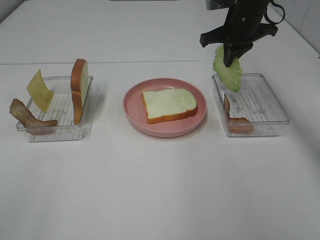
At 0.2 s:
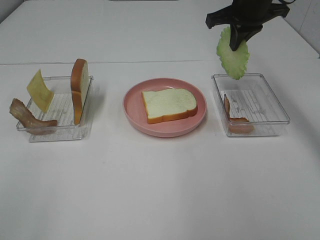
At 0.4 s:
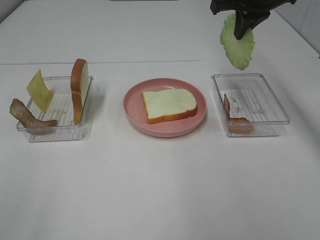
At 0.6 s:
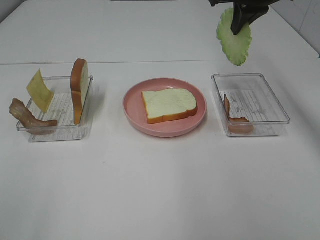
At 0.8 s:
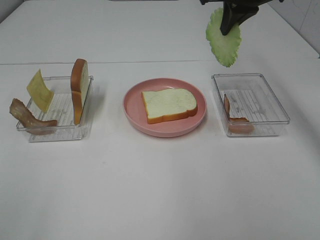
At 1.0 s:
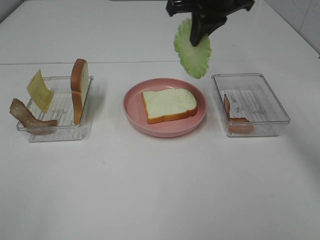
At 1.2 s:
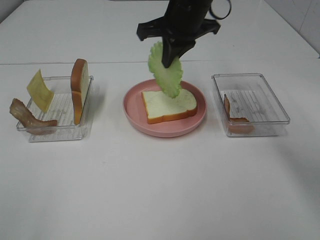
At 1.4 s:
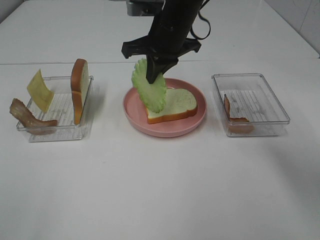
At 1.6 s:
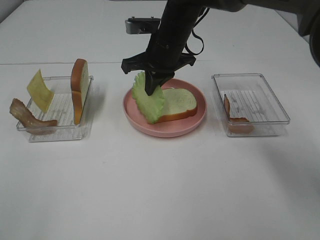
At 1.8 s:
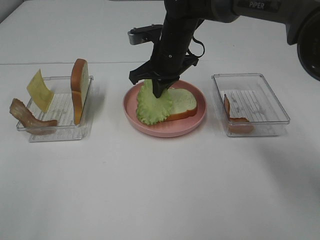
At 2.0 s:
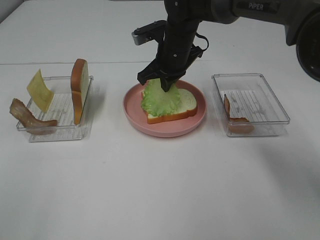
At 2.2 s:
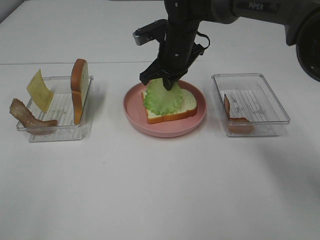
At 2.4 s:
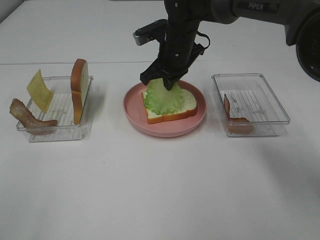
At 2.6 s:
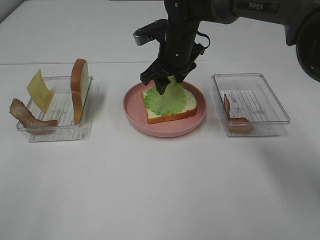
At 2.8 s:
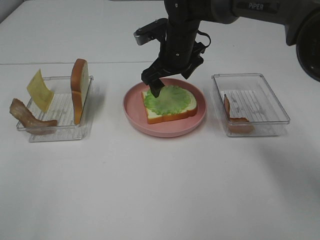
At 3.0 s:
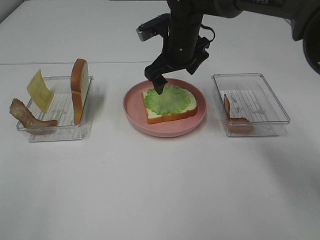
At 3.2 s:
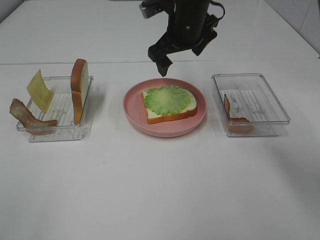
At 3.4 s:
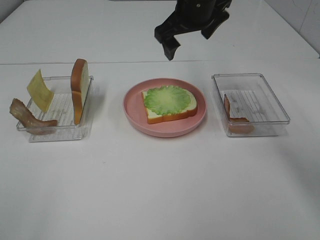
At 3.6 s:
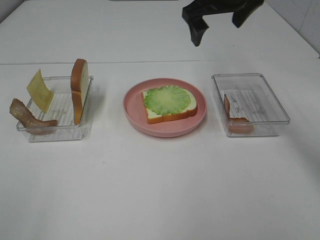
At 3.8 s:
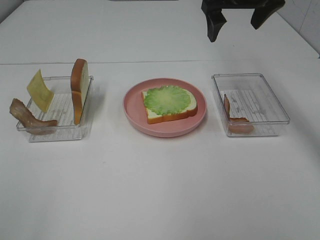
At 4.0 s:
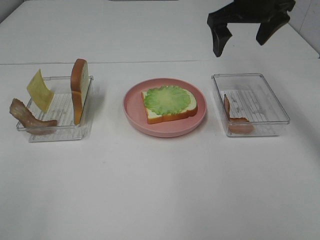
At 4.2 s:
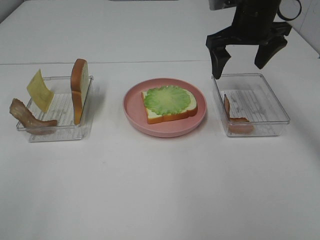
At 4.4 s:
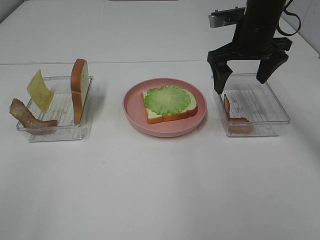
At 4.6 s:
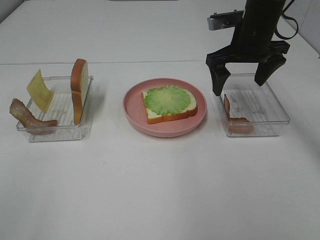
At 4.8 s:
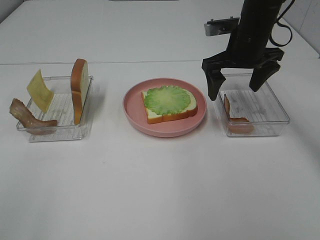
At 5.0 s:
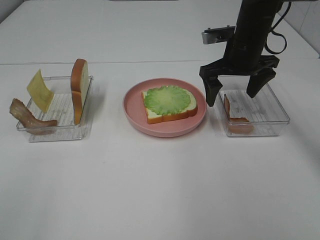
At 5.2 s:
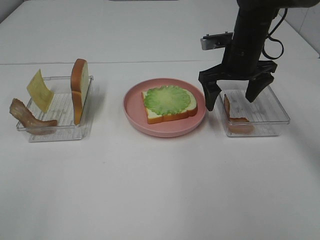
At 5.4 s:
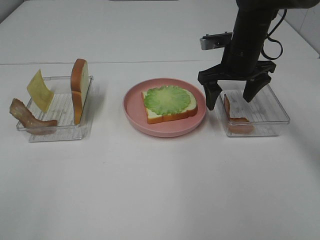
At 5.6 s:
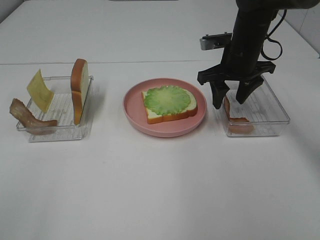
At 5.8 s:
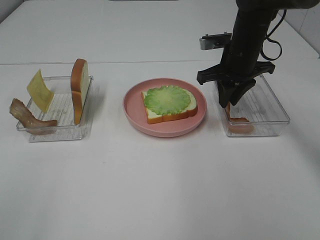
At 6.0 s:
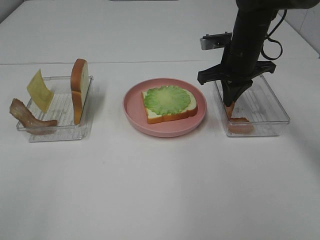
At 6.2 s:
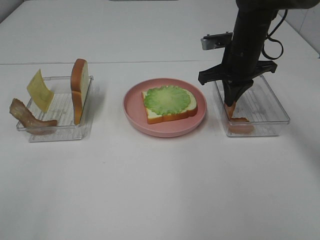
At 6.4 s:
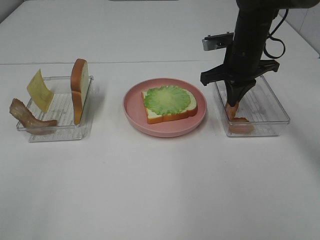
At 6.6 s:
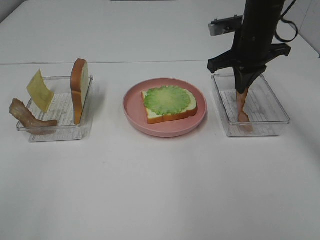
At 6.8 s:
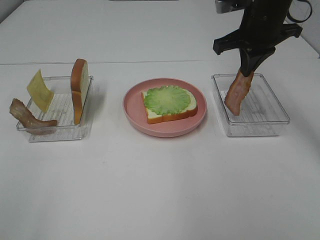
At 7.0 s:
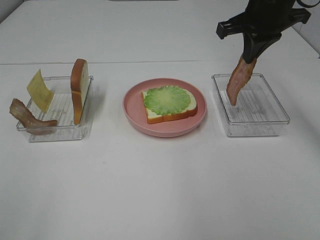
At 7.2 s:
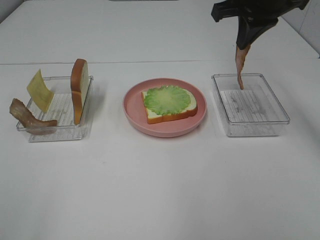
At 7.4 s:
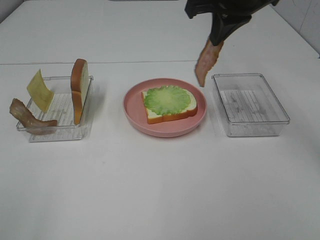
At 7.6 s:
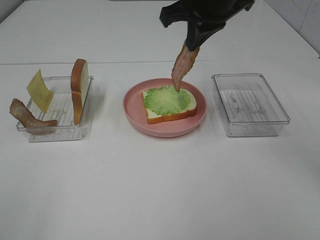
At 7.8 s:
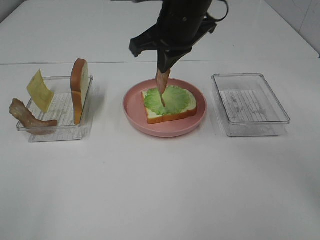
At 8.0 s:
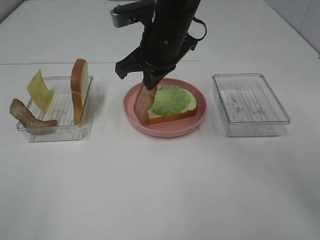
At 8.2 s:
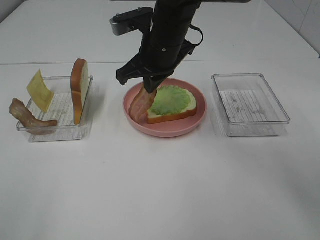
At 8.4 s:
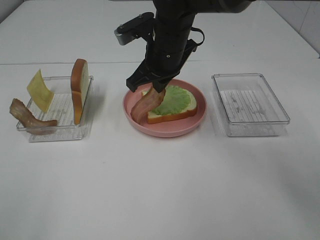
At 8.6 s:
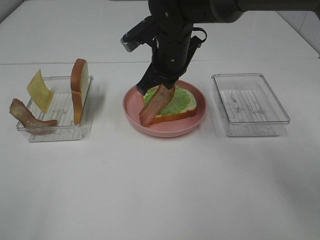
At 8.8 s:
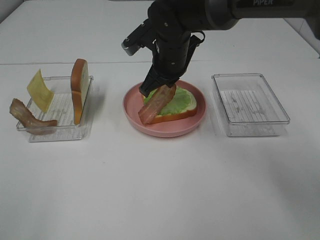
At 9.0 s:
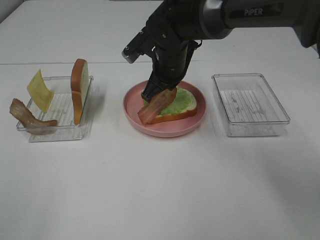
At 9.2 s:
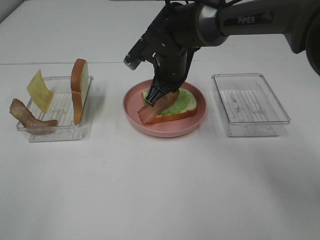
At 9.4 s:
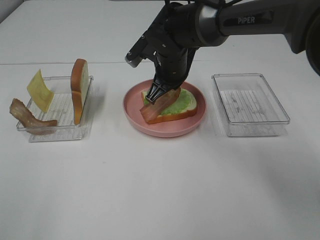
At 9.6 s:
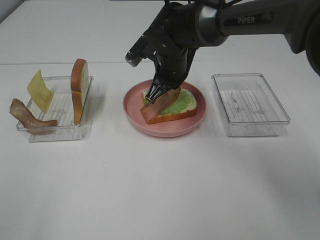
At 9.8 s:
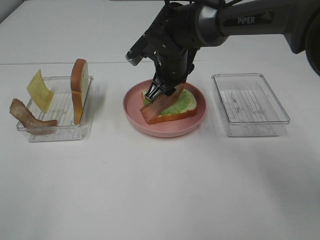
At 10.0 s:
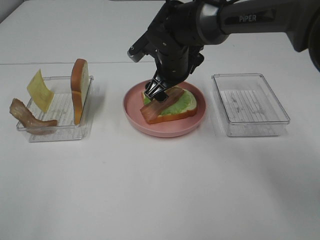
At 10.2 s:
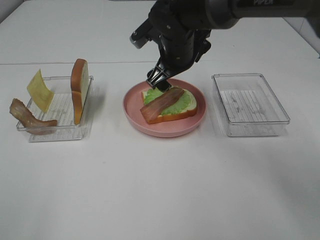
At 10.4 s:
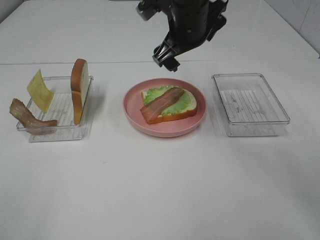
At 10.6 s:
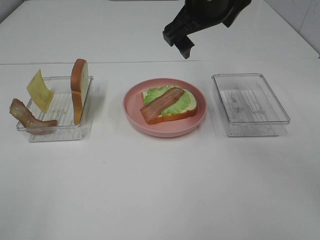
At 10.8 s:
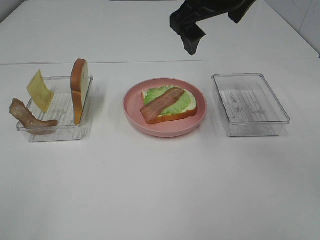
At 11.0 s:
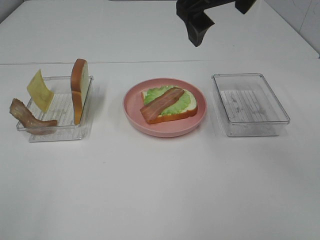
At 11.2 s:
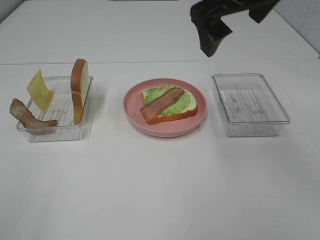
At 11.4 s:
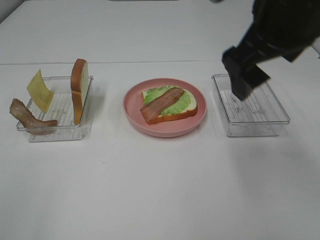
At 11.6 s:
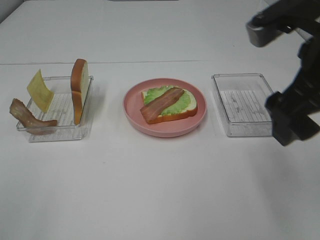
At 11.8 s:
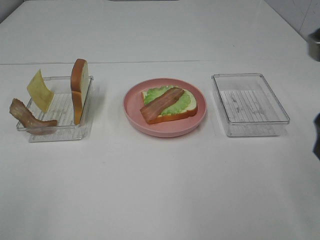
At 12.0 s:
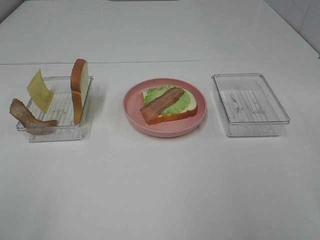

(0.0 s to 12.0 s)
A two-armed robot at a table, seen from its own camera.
Task of the whole recording: Make sandwiches.
Step, 0.0 s - 3.2 s: Right hand:place the lettuce slice on the bread slice.
Step, 3.4 s - 5.8 s: Right hand:grab the bacon.
Step, 6.0 s - 10.0 s: Right hand:place bacon on lettuce slice.
0.0 s - 1.6 s: The right gripper travels to the left by about 15 cm.
1.6 s - 3.0 s: The right gripper opens up.
3.0 s - 4.4 s: The right gripper travels to the right by approximately 10 cm.
4.4 s - 6.0 s: The right gripper changes place by roughly 5 cm, and closes its fingers.
6.0 s - 7.6 s: The right gripper moves upward and to the left, roughly 15 cm.
7.6 s - 9.0 s: The right gripper goes approximately 15 cm downward and to the left.
9.0 s - 10.4 s: The right gripper heads upward, covering about 10 cm, and opens up.
10.4 s - 12.0 s: The right gripper heads backward and to the right, covering about 35 cm.

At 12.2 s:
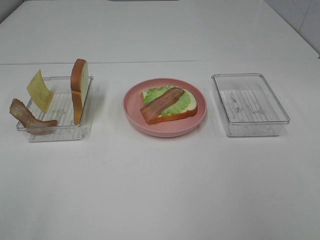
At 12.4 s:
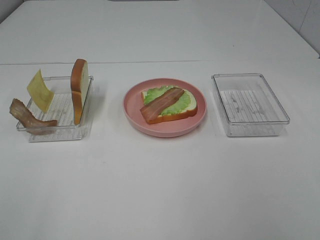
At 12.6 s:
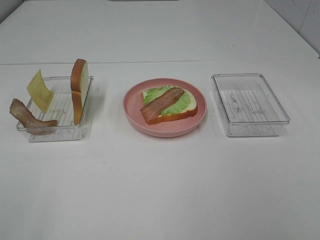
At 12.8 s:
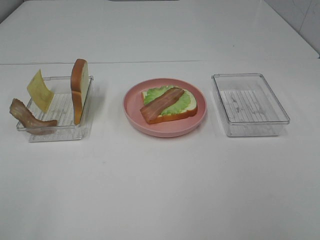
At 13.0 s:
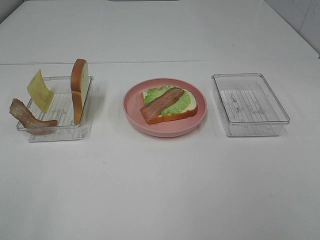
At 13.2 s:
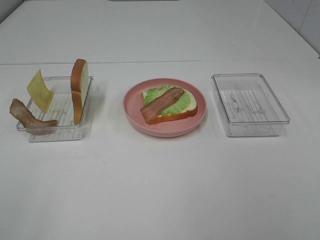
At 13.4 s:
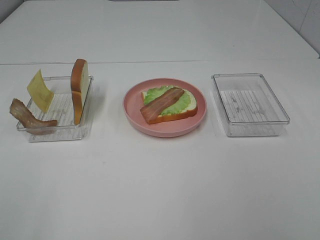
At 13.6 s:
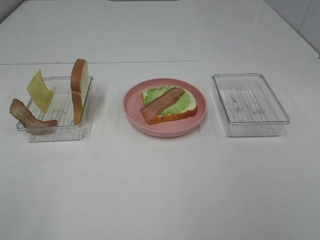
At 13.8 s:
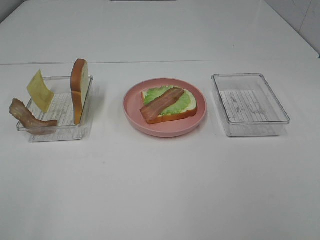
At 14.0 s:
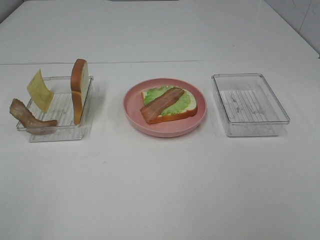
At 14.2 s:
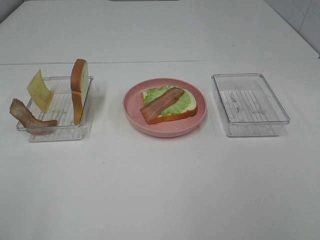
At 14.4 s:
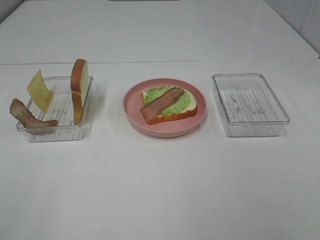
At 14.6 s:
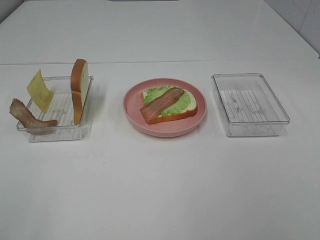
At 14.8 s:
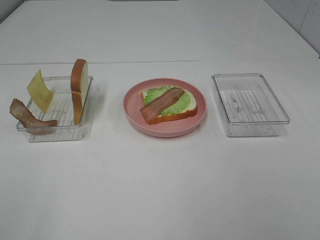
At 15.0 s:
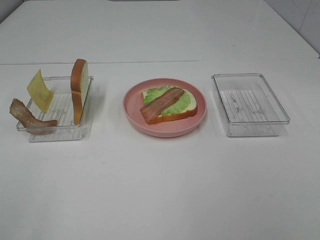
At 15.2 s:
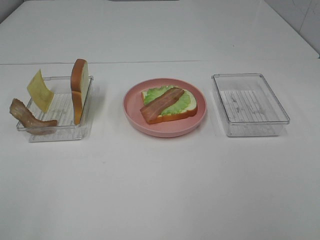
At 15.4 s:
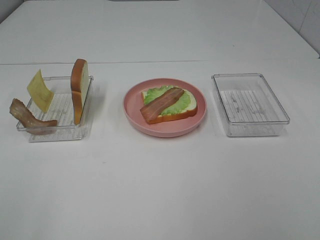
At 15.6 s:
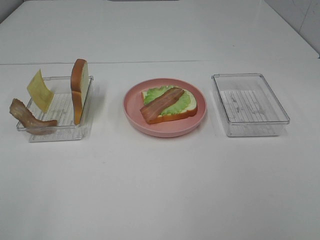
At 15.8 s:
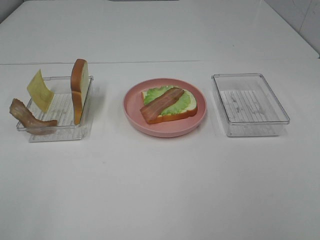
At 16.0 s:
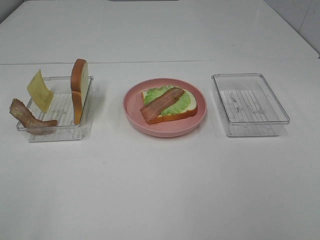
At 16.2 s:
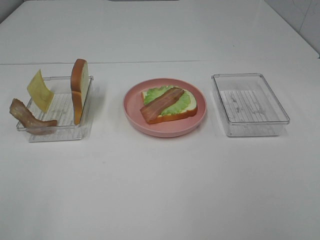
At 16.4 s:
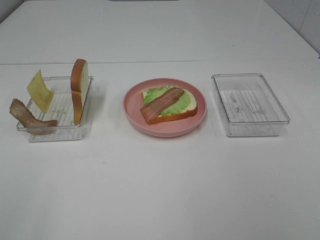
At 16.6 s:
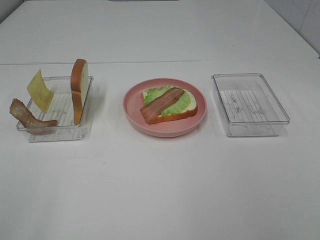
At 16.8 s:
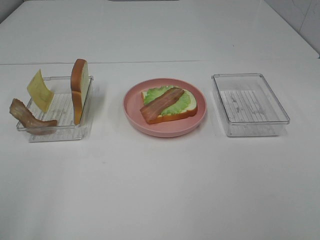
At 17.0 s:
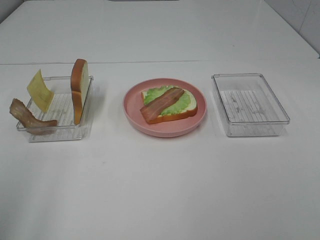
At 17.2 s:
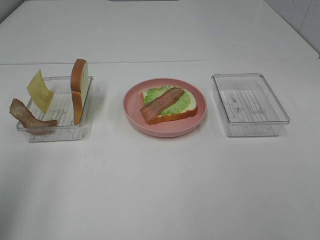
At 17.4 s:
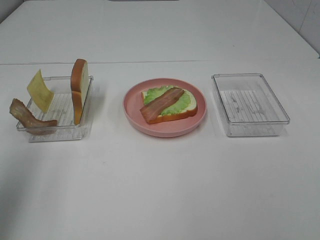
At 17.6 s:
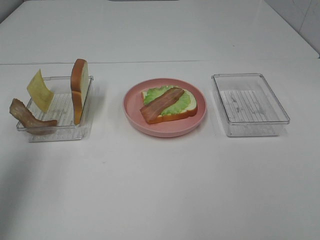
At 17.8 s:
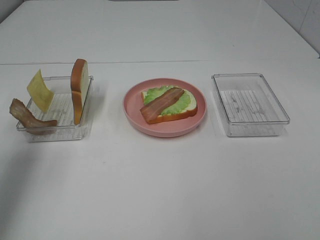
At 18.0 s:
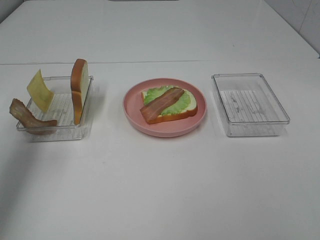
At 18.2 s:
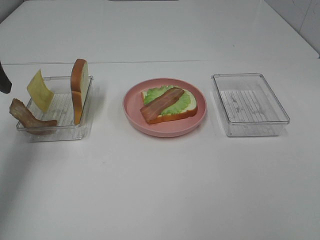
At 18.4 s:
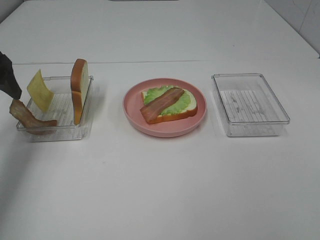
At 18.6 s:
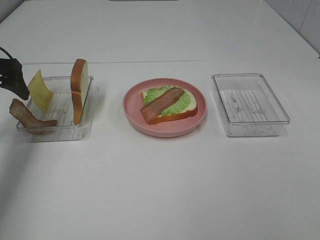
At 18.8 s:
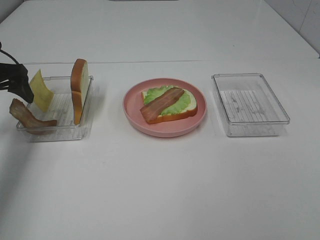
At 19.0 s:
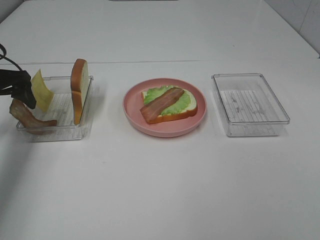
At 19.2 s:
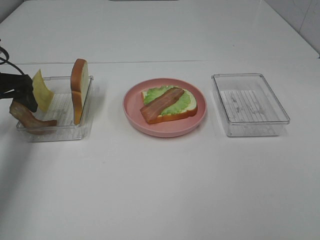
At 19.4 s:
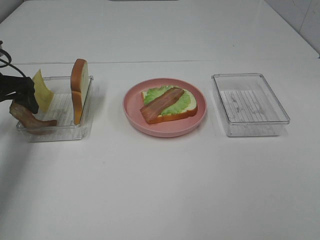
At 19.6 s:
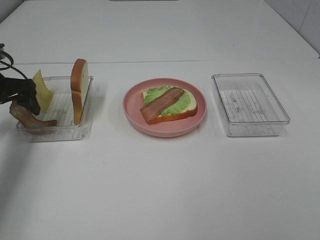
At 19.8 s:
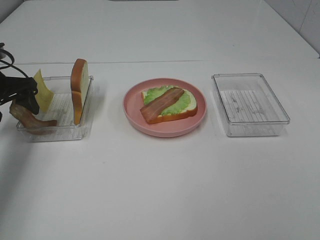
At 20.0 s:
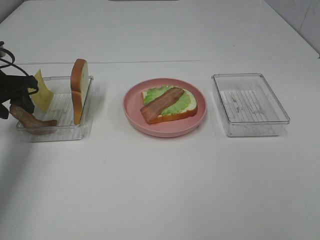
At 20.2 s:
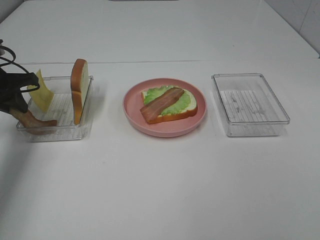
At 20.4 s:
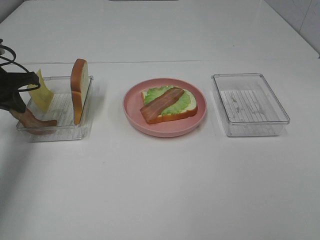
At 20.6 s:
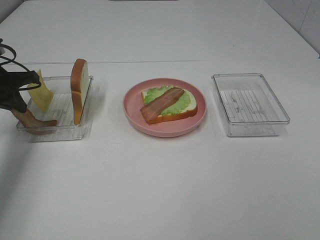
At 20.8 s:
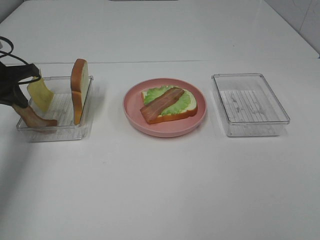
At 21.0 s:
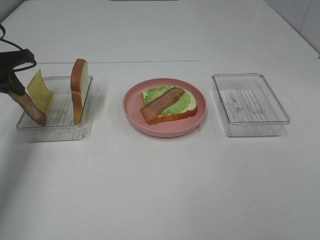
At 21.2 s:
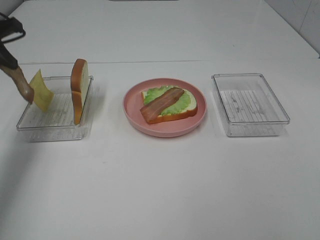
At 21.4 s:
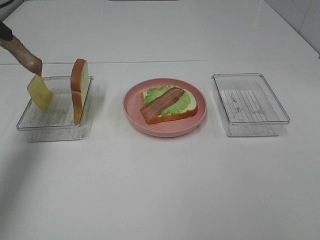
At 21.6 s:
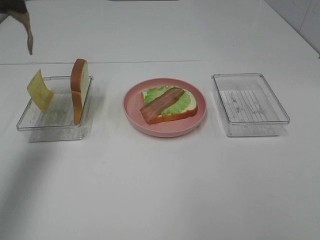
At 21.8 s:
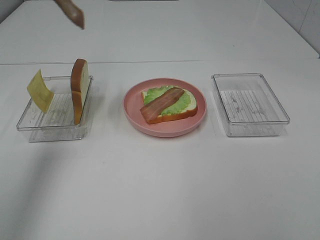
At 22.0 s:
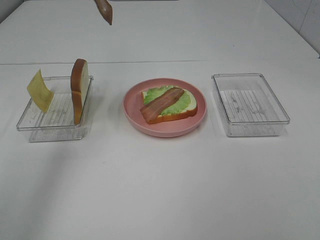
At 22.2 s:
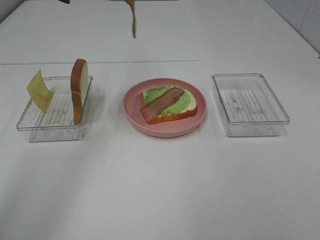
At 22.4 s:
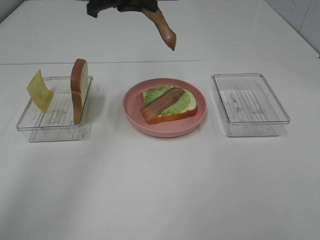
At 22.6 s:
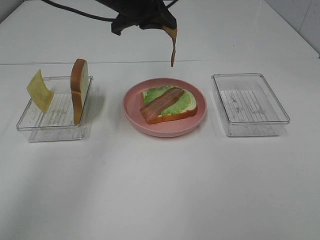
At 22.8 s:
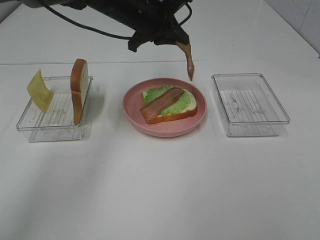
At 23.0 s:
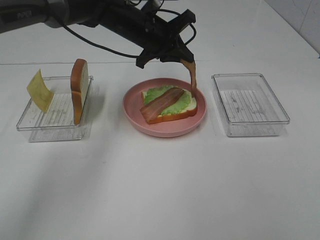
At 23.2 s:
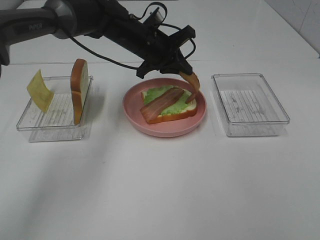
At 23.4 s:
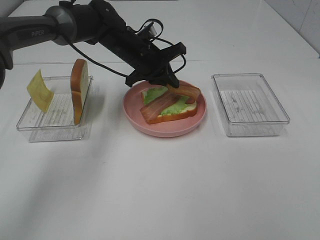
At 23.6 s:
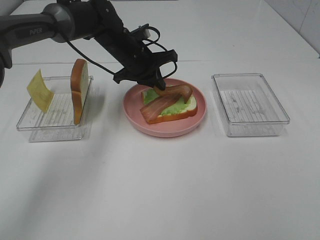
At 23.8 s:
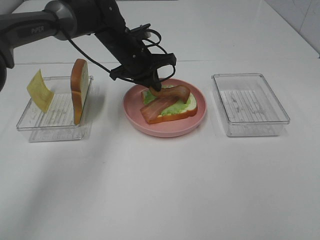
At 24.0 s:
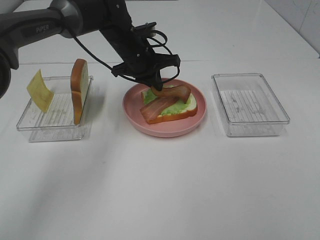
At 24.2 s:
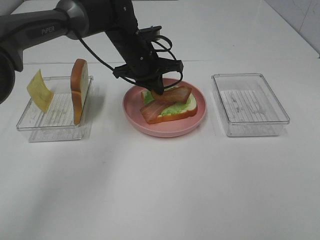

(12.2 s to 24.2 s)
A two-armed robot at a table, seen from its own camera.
Task of the whole recording: Make sandwiches.
Step, 12.2 s - 20.6 s: Left hand:grab the bacon.
13.8 s - 15.2 s: Both grippers stay put.
16.6 s - 18.2 s: The left gripper is displaced forward by approximately 30 cm.
18.2 s - 19.8 s: The left gripper heads downward and forward, covering approximately 10 cm.
19.8 s - 21.2 s: The left gripper is displaced upward by about 10 cm, and closes up.
21.2 s - 22.6 s: The left gripper moves to the right, approximately 25 cm.
22.6 s - 24.2 s: The left gripper travels downward by about 10 cm.
